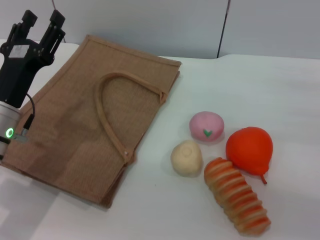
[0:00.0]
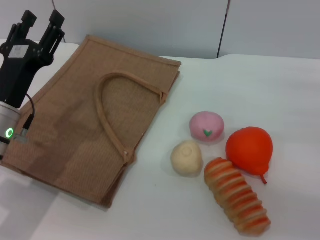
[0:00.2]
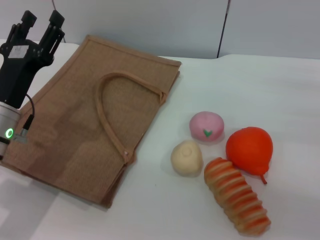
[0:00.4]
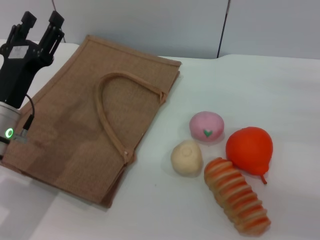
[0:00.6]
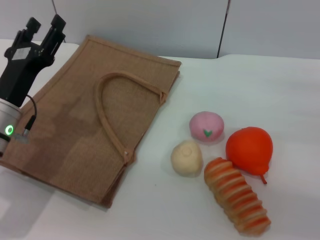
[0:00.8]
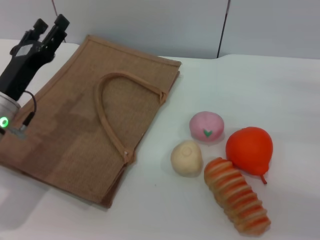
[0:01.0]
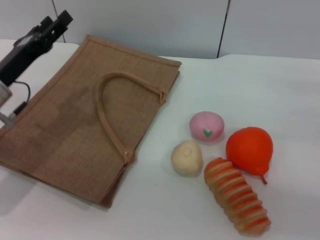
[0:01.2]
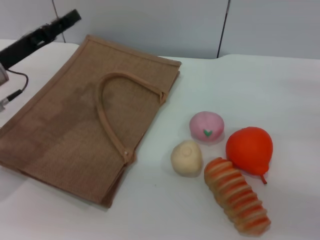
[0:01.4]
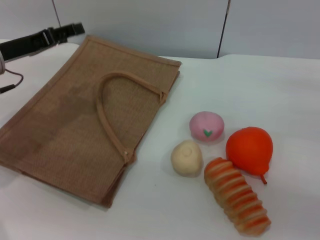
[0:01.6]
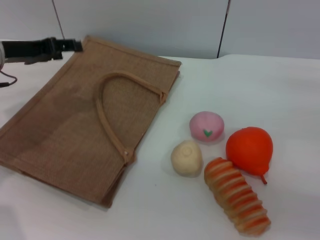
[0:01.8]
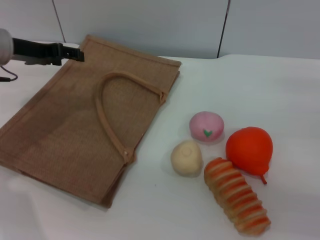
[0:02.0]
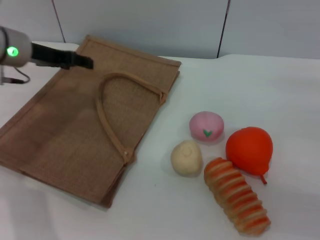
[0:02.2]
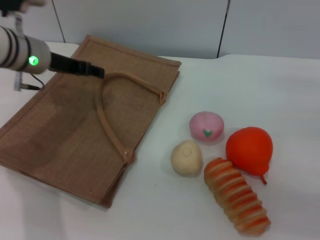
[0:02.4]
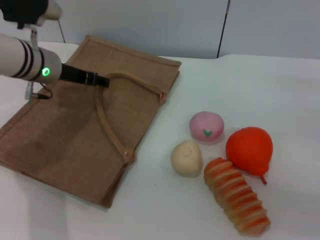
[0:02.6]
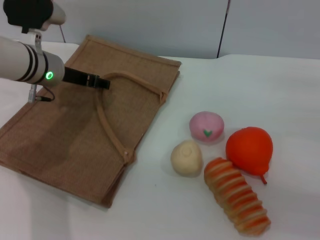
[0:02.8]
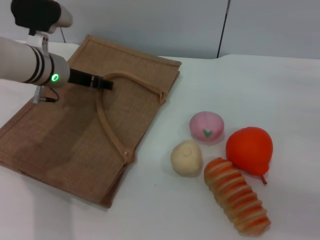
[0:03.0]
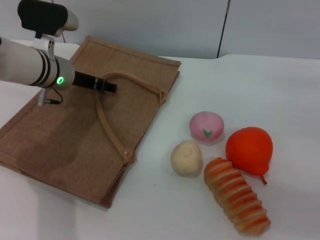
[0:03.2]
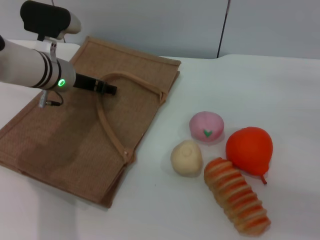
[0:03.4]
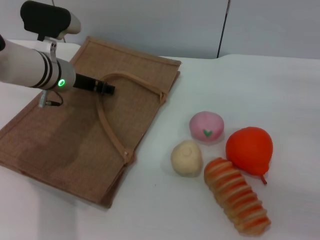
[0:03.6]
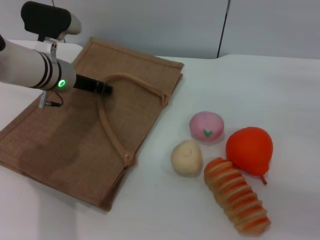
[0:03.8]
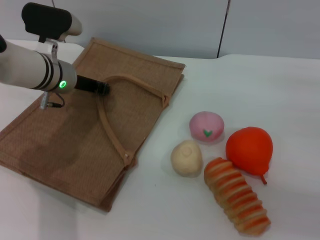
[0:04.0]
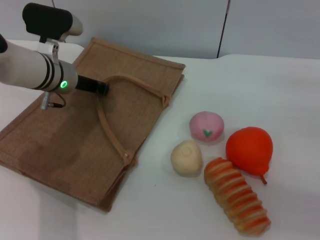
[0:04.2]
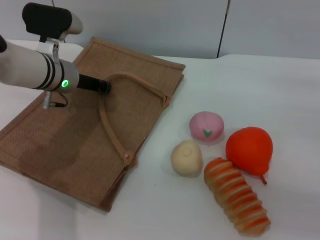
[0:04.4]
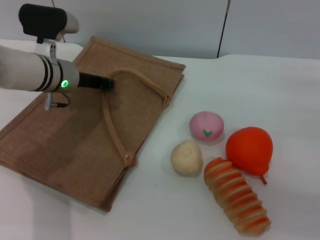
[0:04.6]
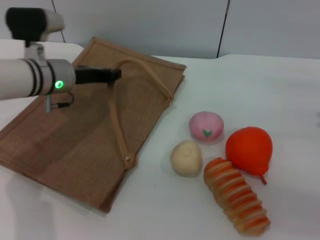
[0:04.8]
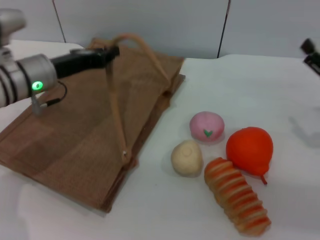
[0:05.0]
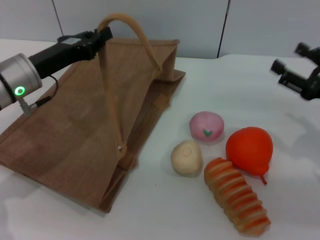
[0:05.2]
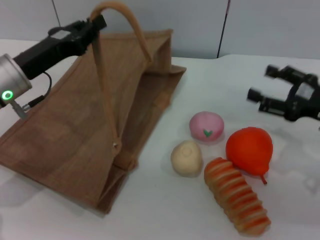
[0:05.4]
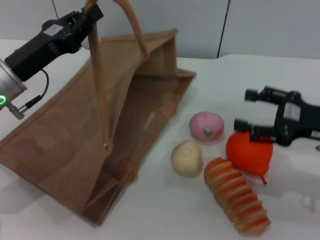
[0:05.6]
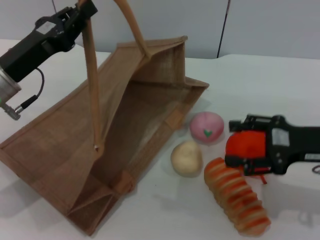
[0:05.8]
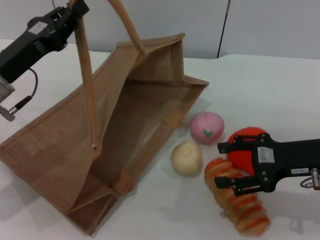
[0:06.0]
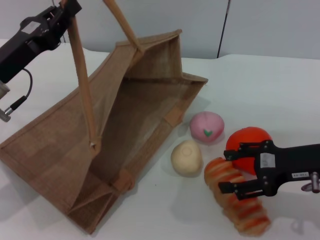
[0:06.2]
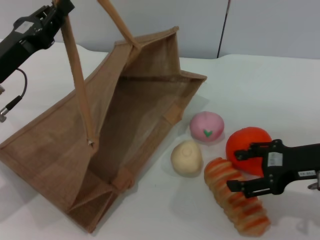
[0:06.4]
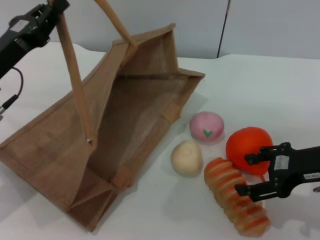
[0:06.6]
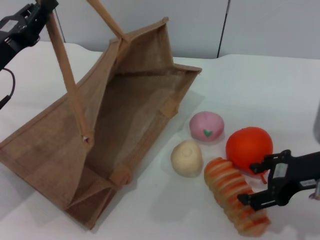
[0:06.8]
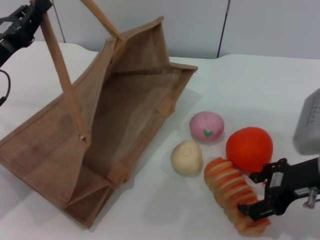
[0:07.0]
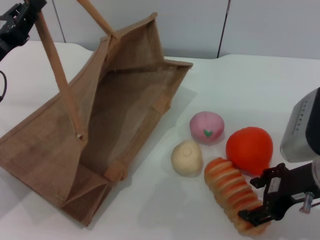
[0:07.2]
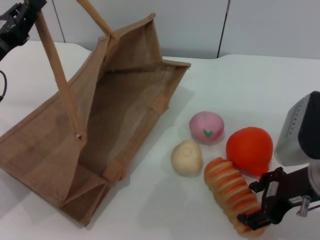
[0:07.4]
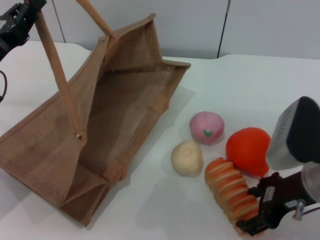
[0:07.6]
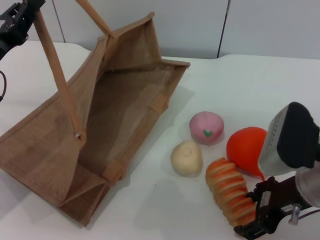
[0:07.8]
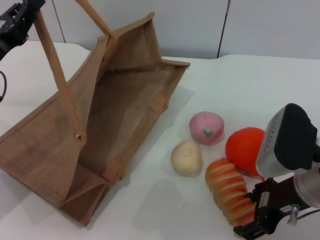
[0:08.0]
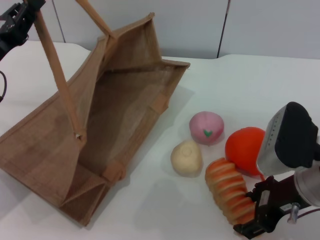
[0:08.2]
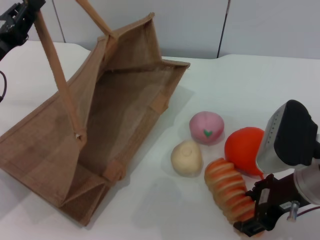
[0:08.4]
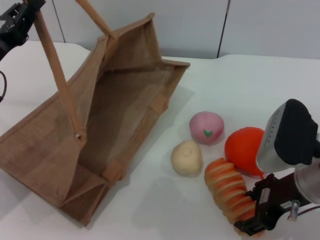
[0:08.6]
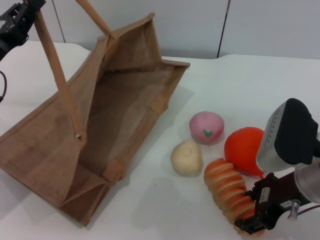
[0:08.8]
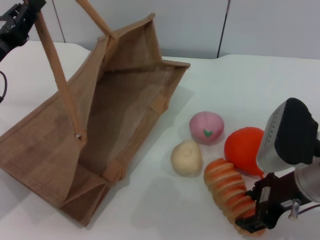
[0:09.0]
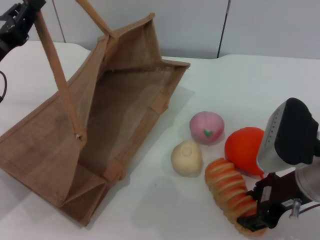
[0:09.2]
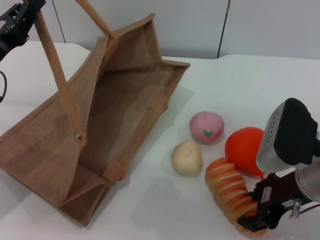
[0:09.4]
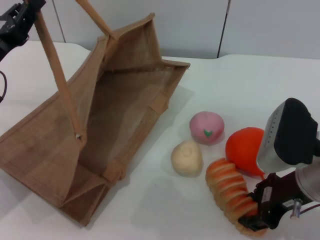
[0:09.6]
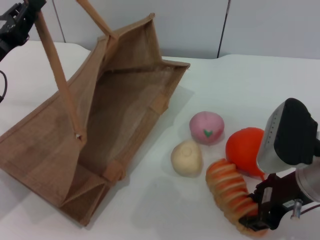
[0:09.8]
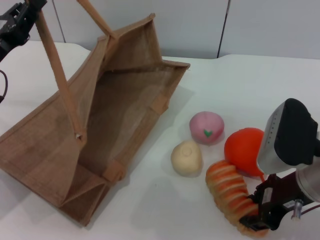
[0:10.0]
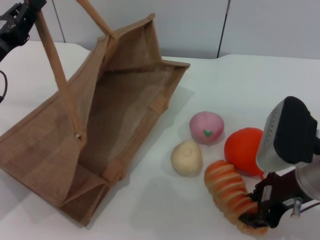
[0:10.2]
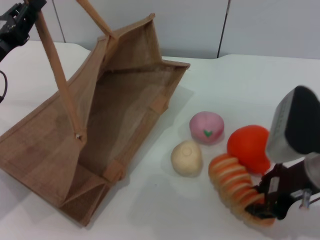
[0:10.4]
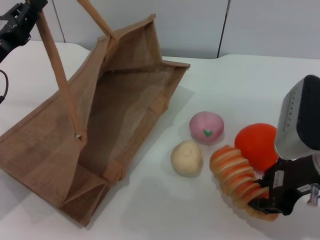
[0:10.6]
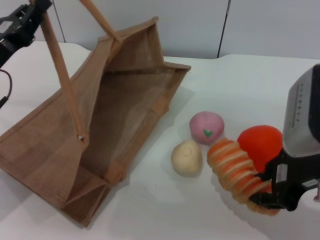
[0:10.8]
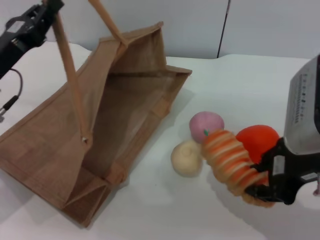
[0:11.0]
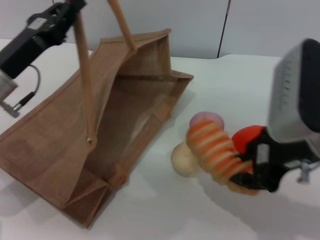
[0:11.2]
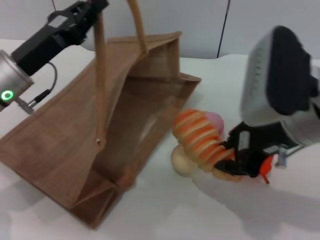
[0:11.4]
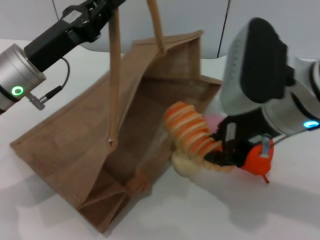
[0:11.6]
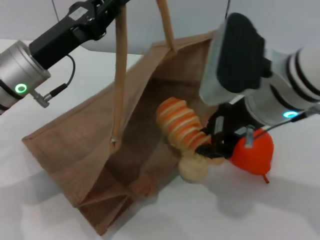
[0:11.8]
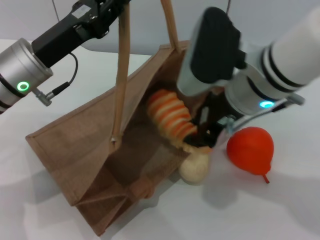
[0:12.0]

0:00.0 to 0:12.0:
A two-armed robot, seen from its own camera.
Task of the whole recording: pick up the bread and egg yolk pastry from the table and place it in the brown handbag.
Step, 0:00.0 to 0:04.8: Lift the woven bag with the left gripper to open it.
Step, 0:05.0 to 0:11.0: Pick up the bread with the right gripper.
0:00.0 to 0:01.6: The left gripper goes roughly 10 cm forward, upward and to the left.
0:01.6 to 0:03.0: The left gripper shifts about 10 cm to the right and forward.
0:03.0 to 0:04.4: The left gripper closes up.
0:04.4 to 0:06.0: The right gripper moves to the left, roughly 10 cm. Meanwhile the left gripper heads backward and to the left, covering roughly 15 cm.
0:06.0 to 0:07.6: The right gripper shifts about 5 cm to the left.
0:07.6 to 0:09.0: Both grippers stay about where they are.
0:09.0 to 0:10.4: The right gripper closes its fingers.
0:10.4 to 0:12.0: The left gripper heads to the right, covering about 10 cm; the right gripper travels to the left, forward and upward by roughly 15 cm.

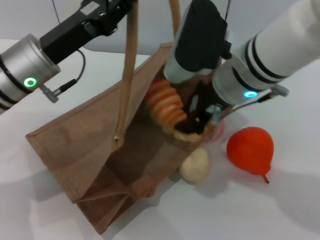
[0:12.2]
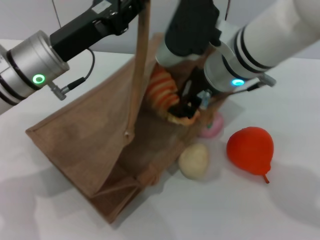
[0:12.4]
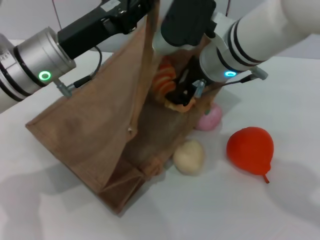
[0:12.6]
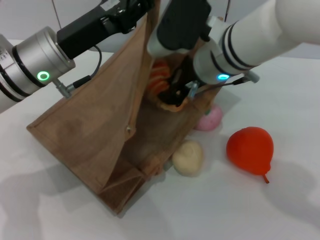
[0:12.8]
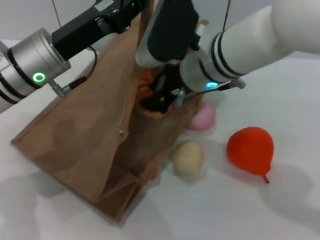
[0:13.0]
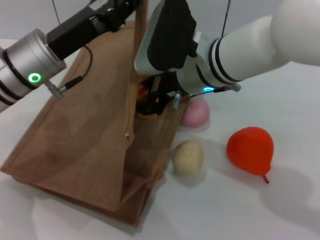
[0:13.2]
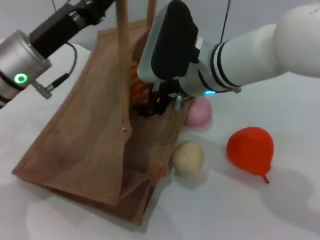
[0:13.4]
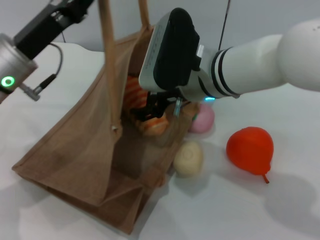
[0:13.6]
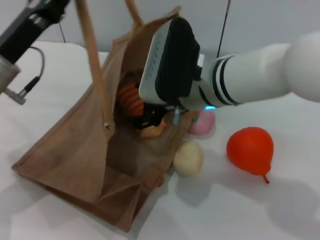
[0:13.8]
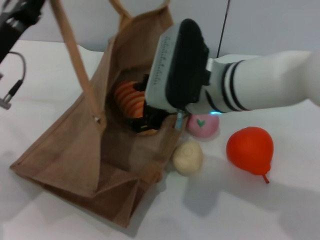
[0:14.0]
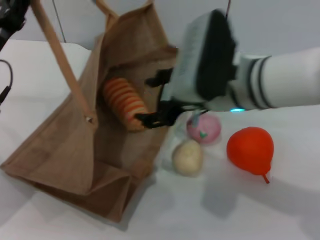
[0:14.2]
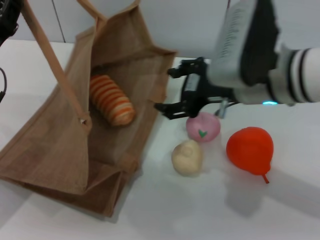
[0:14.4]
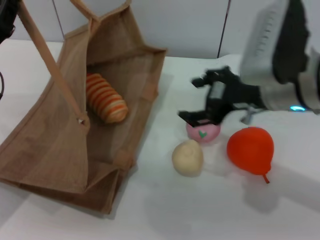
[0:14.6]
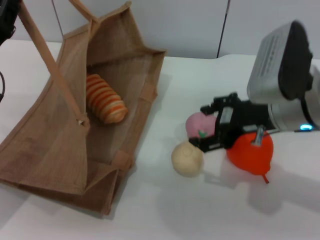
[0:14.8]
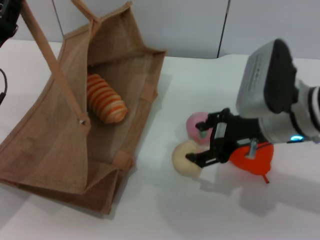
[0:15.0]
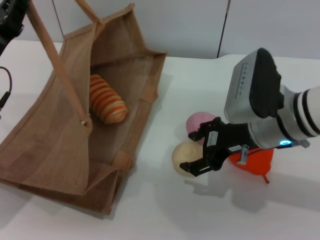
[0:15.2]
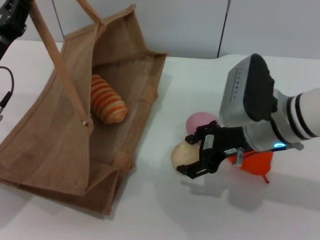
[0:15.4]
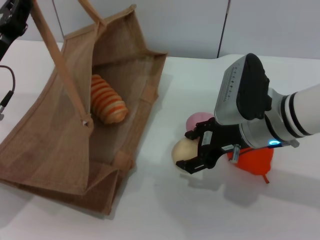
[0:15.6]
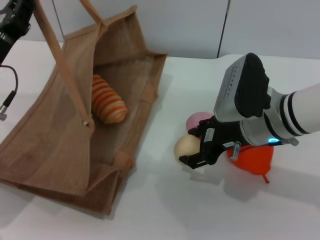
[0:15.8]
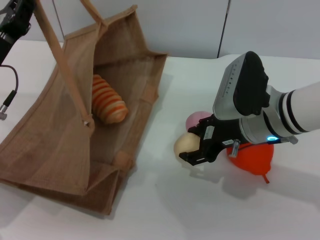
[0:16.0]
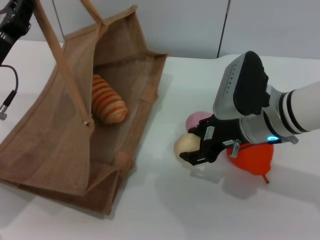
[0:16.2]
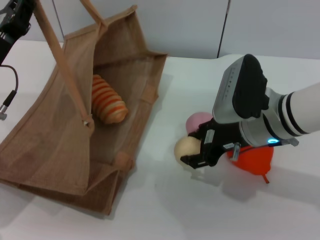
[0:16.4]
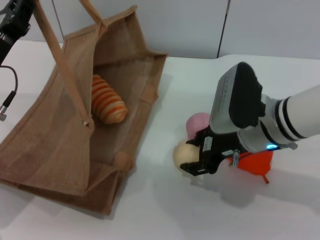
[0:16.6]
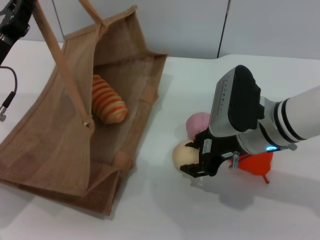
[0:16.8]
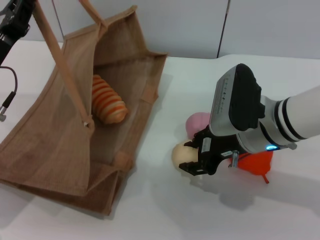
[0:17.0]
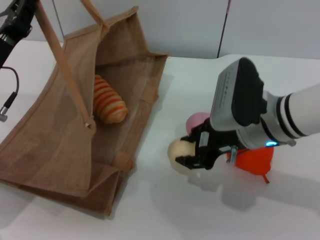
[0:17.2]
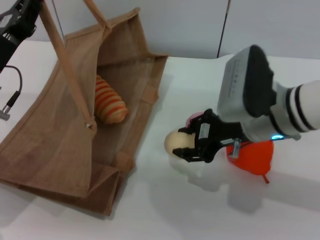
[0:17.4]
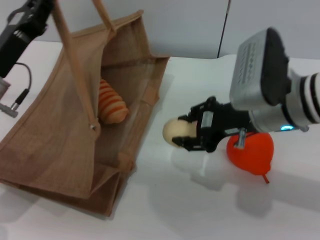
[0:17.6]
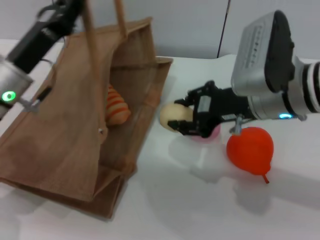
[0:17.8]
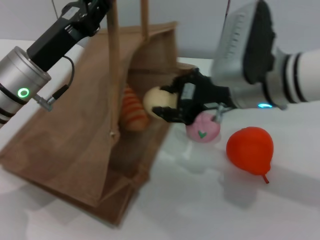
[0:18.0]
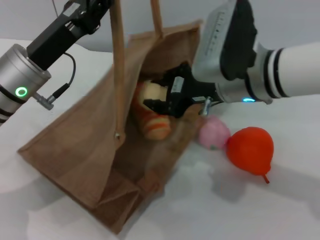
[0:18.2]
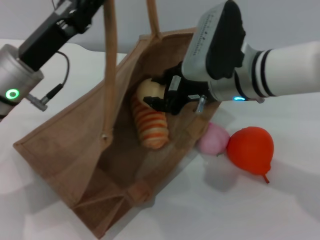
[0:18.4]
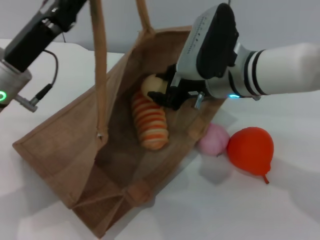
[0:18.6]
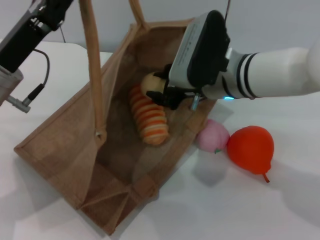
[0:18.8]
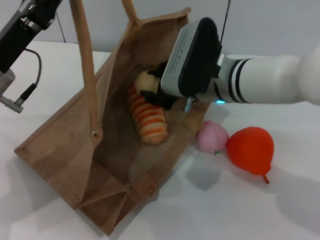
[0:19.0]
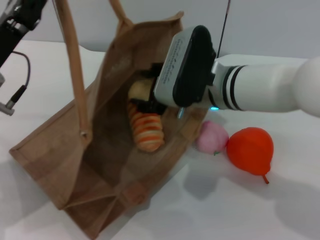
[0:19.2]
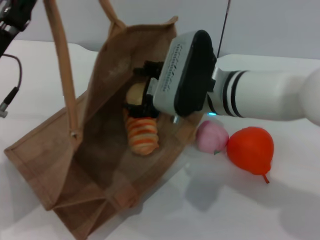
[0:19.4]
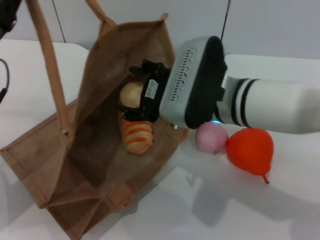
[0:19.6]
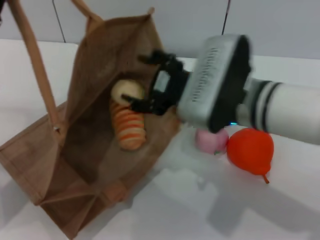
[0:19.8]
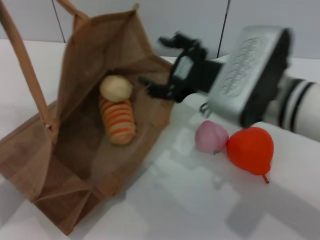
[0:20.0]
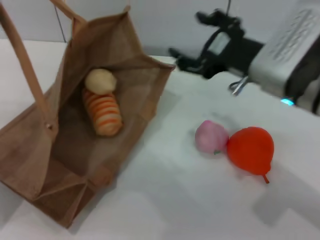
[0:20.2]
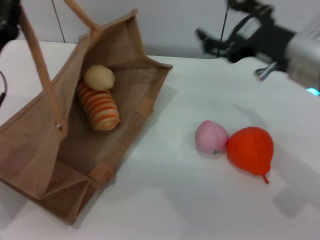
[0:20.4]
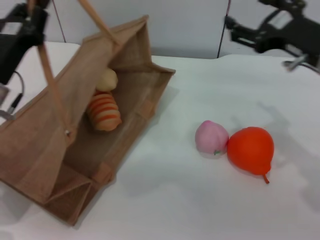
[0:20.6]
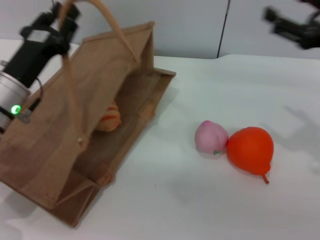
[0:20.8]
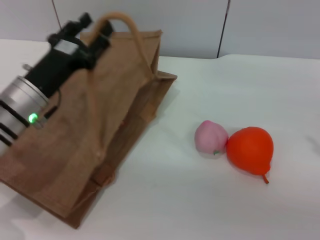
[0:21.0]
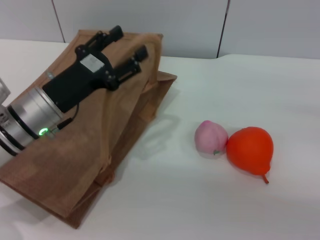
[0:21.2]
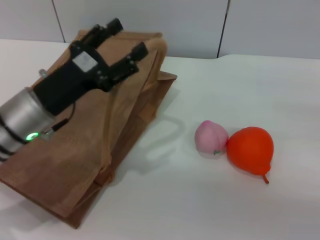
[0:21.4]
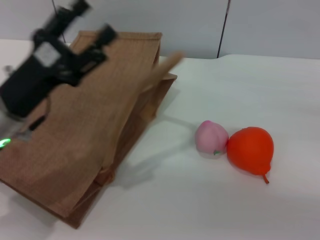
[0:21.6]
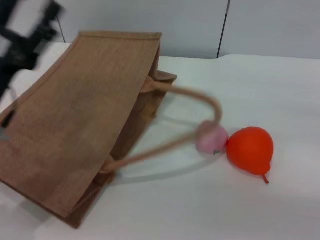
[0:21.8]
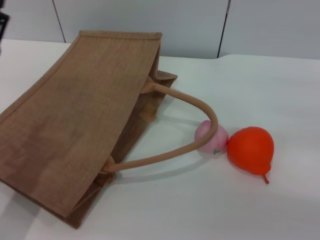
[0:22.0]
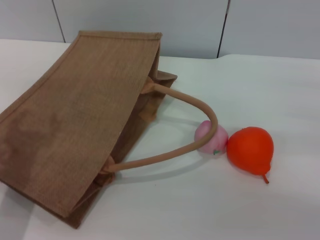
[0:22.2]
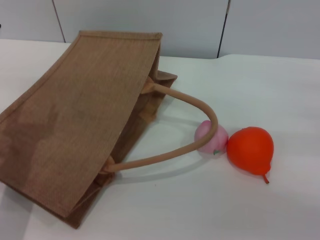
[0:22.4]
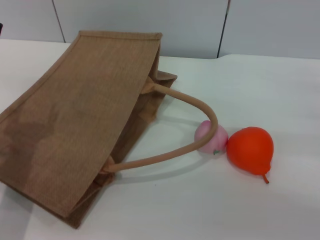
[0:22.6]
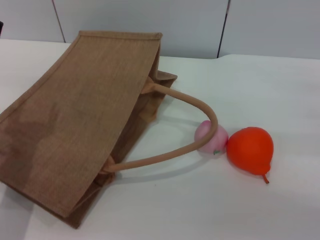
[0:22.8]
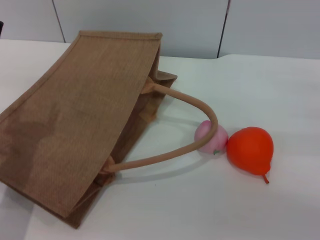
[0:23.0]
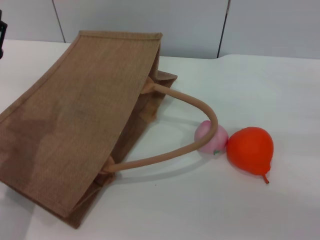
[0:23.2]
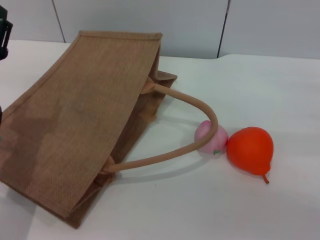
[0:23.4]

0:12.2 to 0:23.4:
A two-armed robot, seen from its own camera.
Task of the whole recording: pick up the bread and egg yolk pastry from the table and place it in the brown handbag.
Step, 0:12.2 to 0:14.2: Place the bread into the woven bag with the right gripper.
Step, 0:14.6 to 0:17.6: Pick up the egg yolk pastry with the right gripper.
Step, 0:17.8 to 0:20.0: Place the egg yolk pastry into the woven bag with the right gripper.
Step, 0:20.2 to 0:22.0: Lower the woven bag with the left gripper to close it.
0:12.2 to 0:13.8: The right gripper ends up about 5 cm from where it was, and opens its fingers.
0:13.8 to 0:15.4: The right gripper heads to the right, covering some 10 cm.
0:15.4 to 0:17.0: The right gripper closes its fingers.
0:17.0 to 0:18.6: The left gripper ends up some 5 cm from where it was. Meanwhile the right gripper shifts by some 5 cm.
0:18.6 to 0:20.2: The right gripper is displaced backward and to the right by some 10 cm, and opens up; the left gripper heads to the left, covering roughly 5 cm.
0:20.2 to 0:21.8: The right gripper heads to the right, covering about 20 cm; the left gripper opens.
0:21.8 to 0:23.4: The right gripper heads downward, covering roughly 5 cm.
